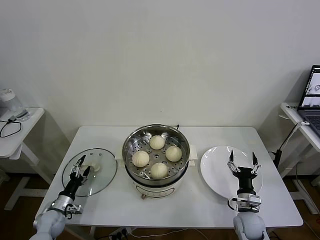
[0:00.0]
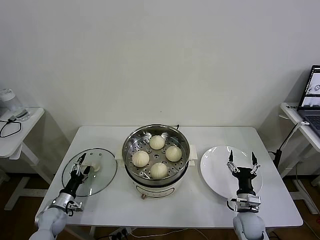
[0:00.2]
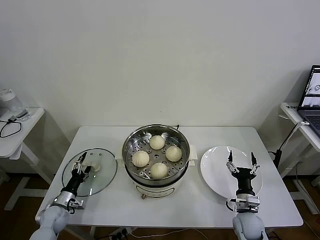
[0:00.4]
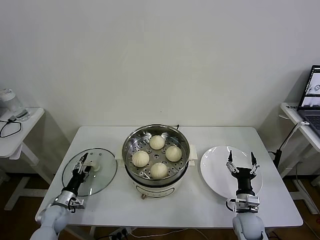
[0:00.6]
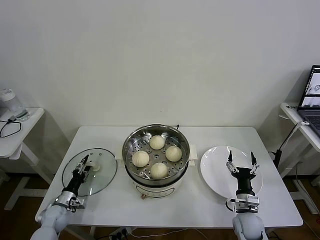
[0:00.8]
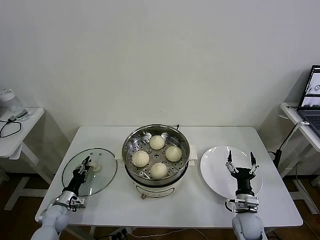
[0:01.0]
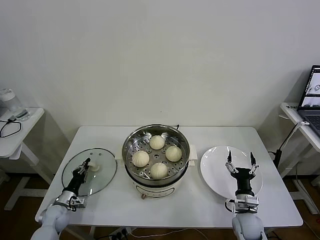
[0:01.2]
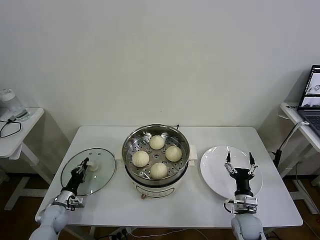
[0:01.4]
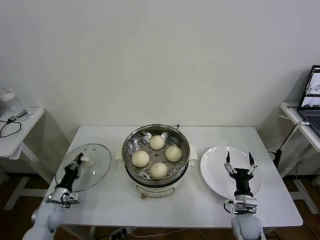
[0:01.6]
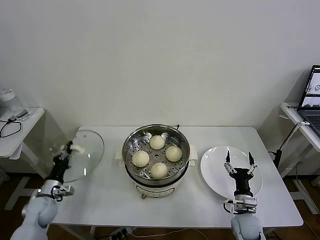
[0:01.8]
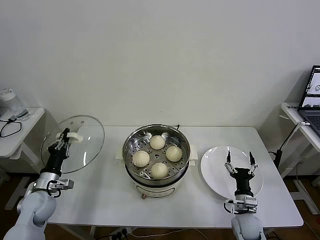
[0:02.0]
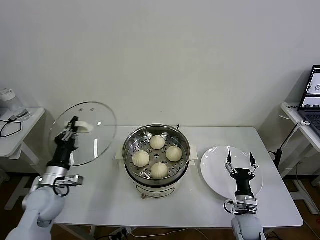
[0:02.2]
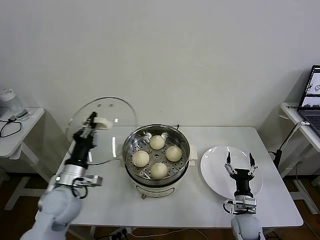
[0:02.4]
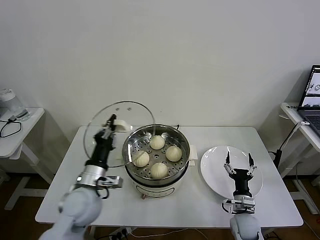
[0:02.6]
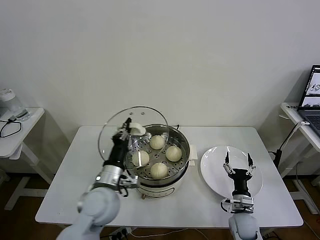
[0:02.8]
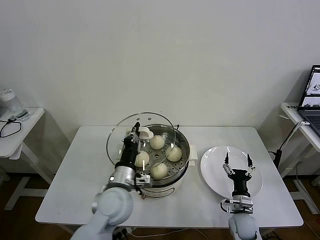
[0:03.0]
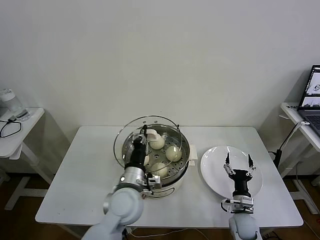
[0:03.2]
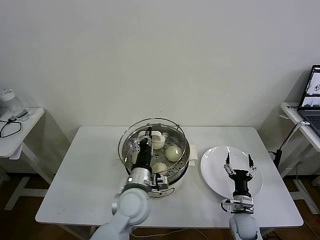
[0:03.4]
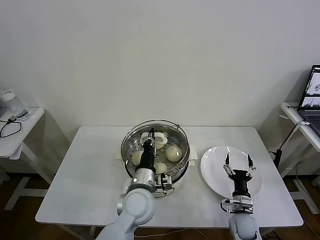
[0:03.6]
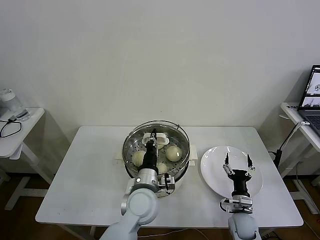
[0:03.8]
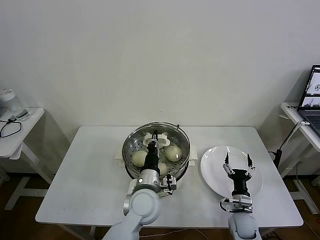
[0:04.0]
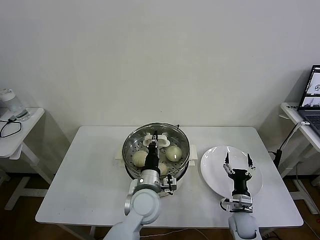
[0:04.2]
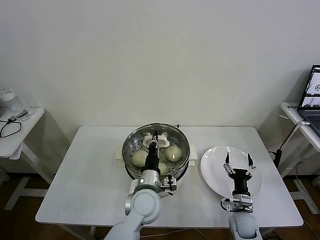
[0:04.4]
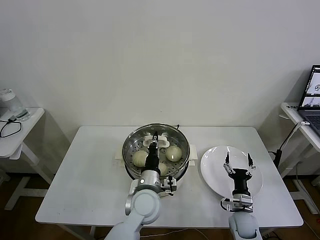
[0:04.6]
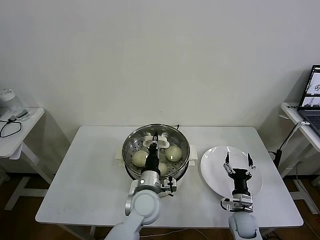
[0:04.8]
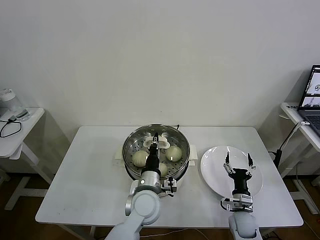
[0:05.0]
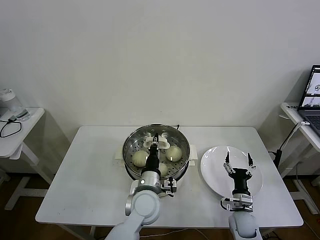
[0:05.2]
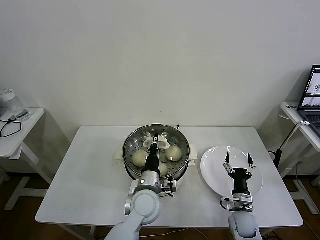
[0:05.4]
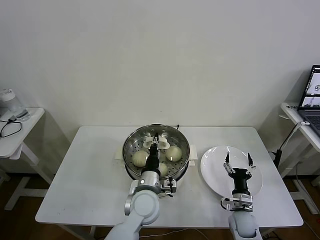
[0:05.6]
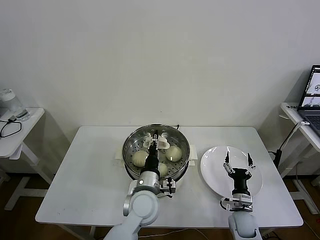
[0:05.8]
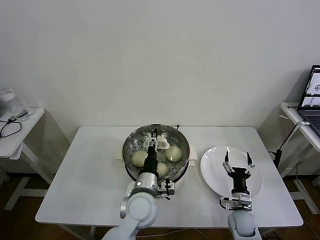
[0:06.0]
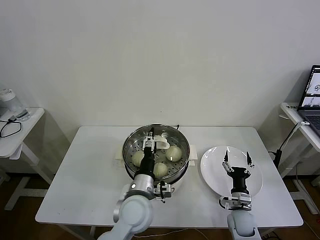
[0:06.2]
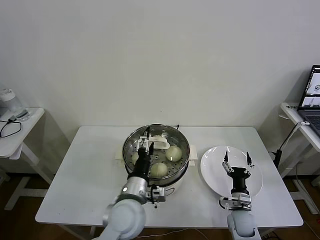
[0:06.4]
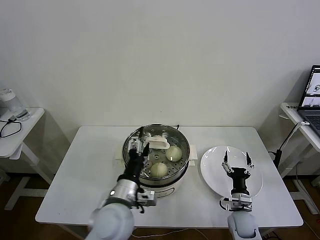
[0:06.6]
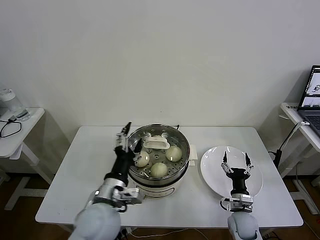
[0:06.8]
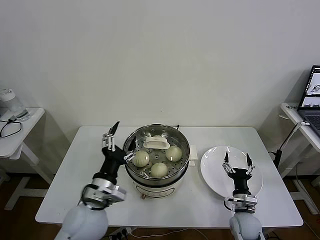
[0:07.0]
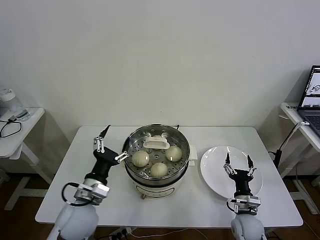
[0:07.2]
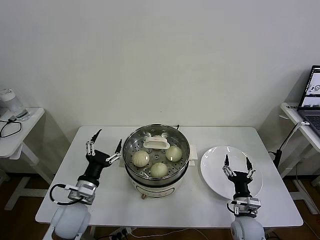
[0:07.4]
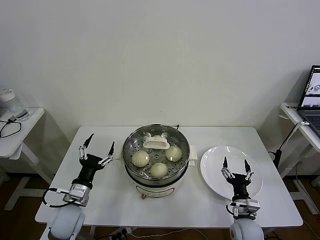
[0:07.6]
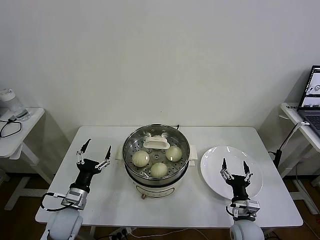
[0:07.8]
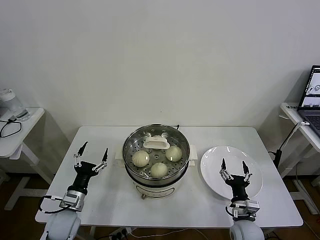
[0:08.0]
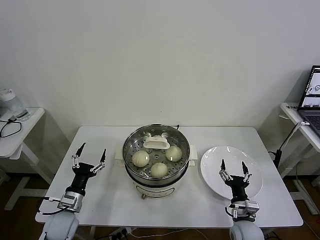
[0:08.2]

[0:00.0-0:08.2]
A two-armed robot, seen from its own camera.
Task of the whole recording: take steamed baozi put them in steamer then cover it.
Step, 0:01.4 to 0:06.0: Place the pot lid on the steamer with left gripper.
0:00.0 to 0:01.6: The left gripper closes its fingers.
0:01.6 to 0:03.2: The left gripper is displaced to the right and upward by roughly 40 cm.
0:03.2 to 0:05.0: The left gripper heads to the right, covering roughly 5 cm.
0:05.0 to 0:06.6: The left gripper heads upward, to the left and backward, covering about 10 cm, and opens its fingers.
0:06.6 to 0:08.2: The left gripper moves to the left and downward, about 25 cm; the right gripper ends up approximately 5 cm from where it was.
